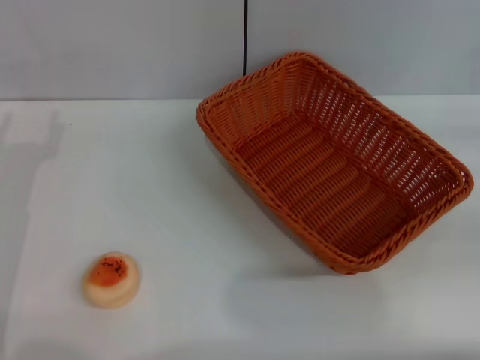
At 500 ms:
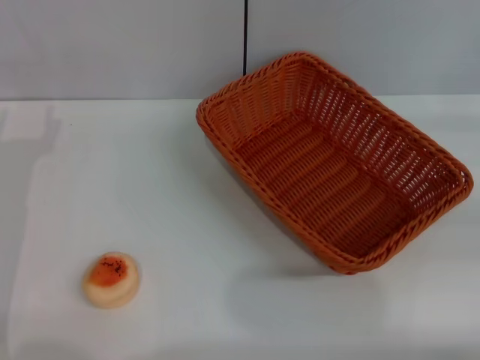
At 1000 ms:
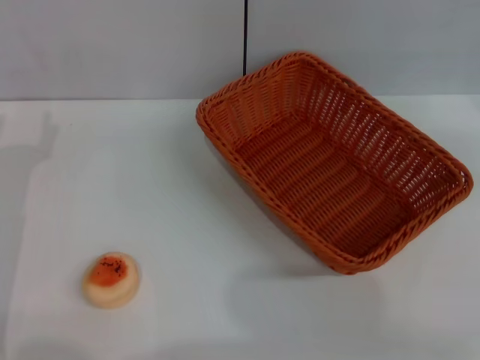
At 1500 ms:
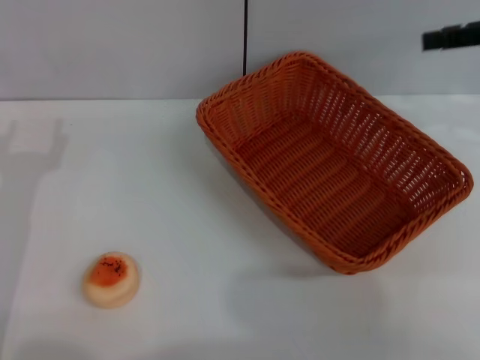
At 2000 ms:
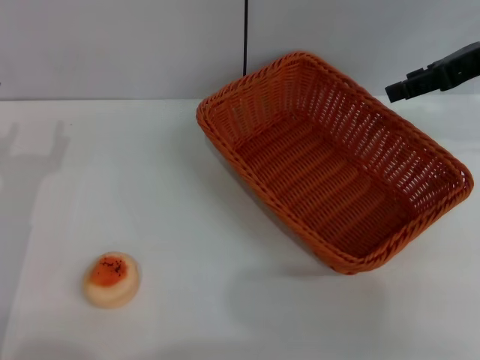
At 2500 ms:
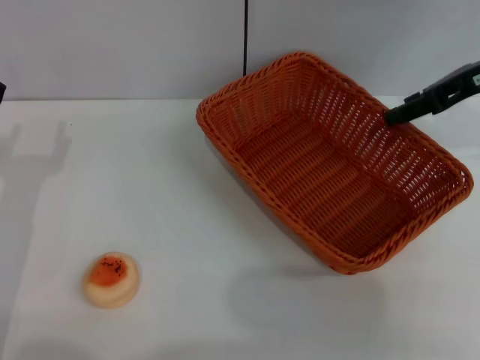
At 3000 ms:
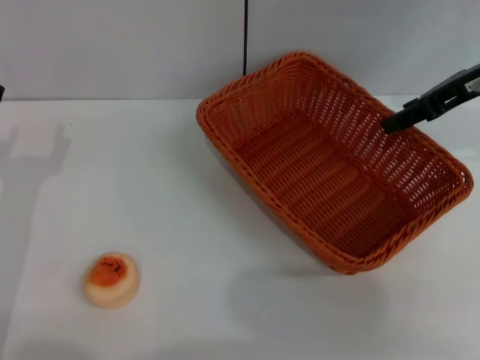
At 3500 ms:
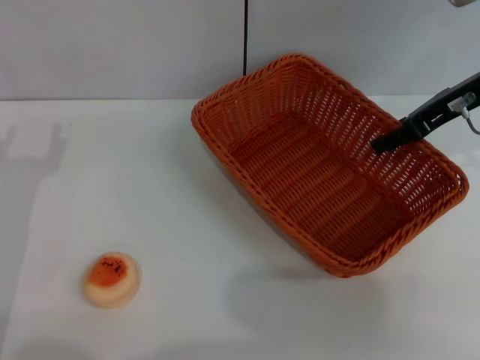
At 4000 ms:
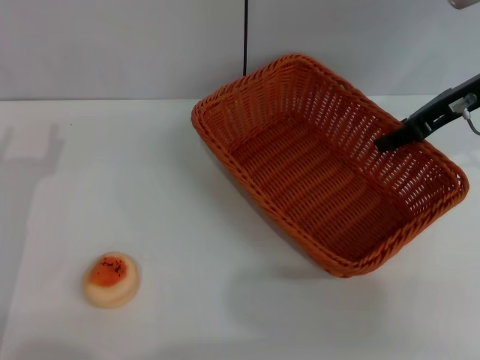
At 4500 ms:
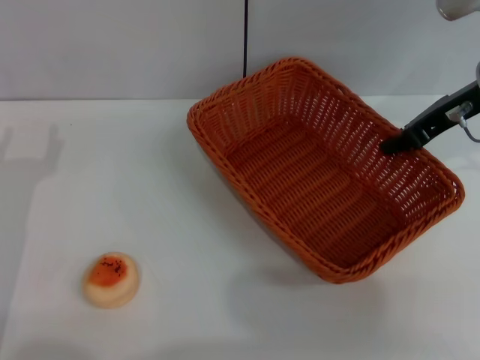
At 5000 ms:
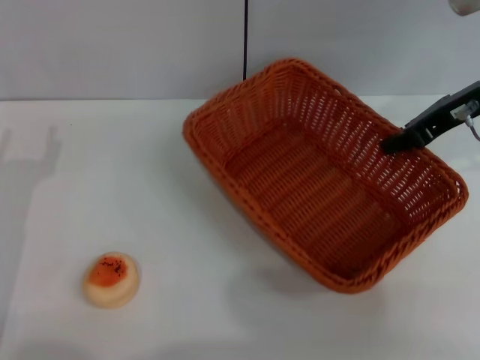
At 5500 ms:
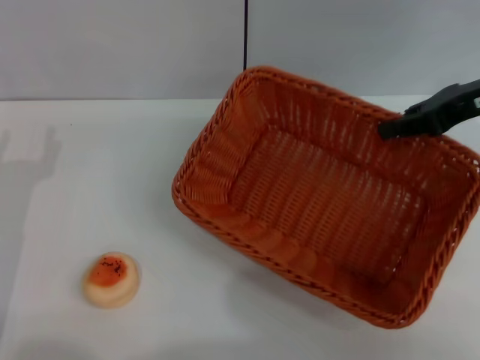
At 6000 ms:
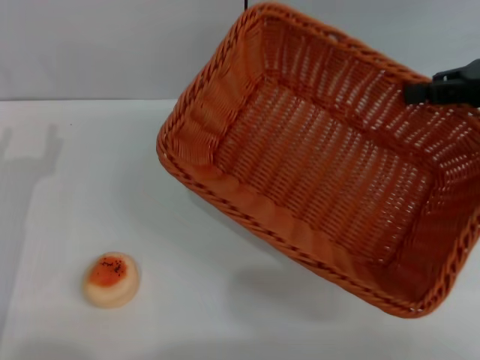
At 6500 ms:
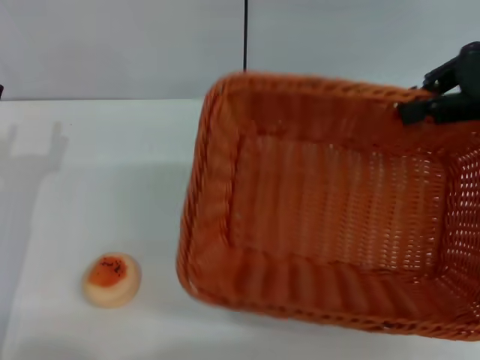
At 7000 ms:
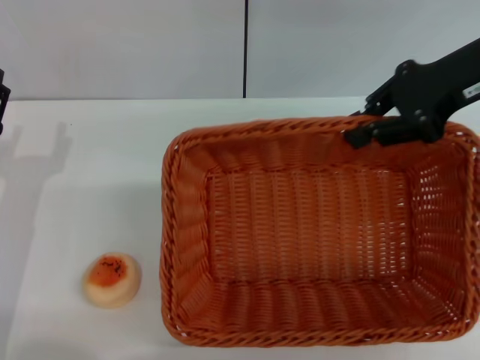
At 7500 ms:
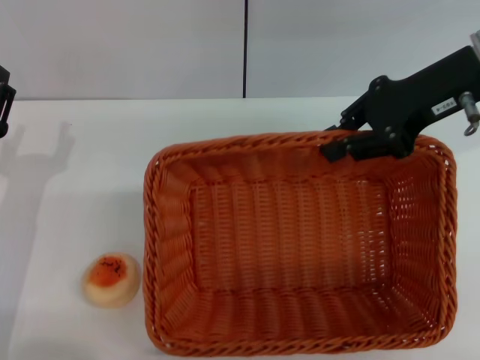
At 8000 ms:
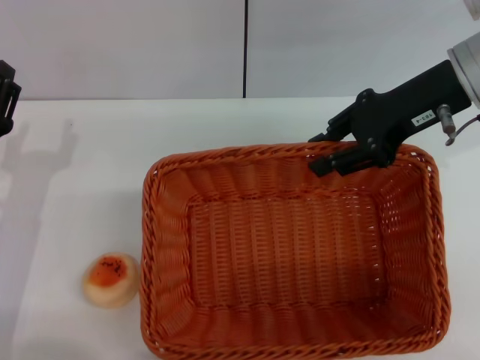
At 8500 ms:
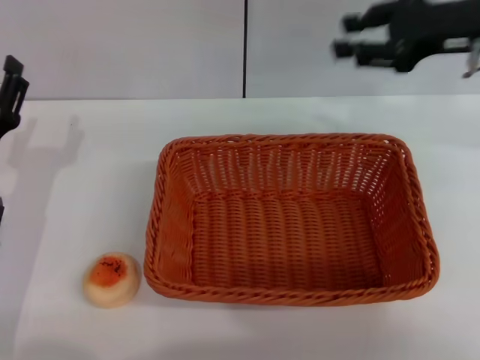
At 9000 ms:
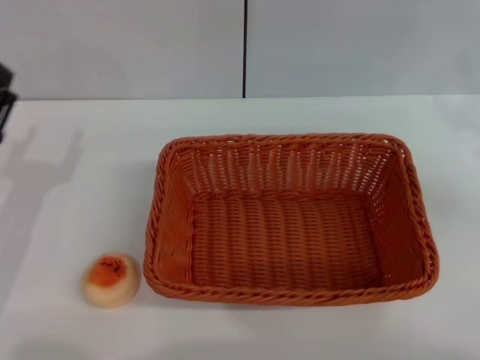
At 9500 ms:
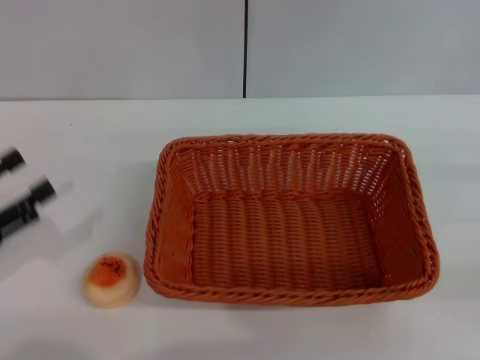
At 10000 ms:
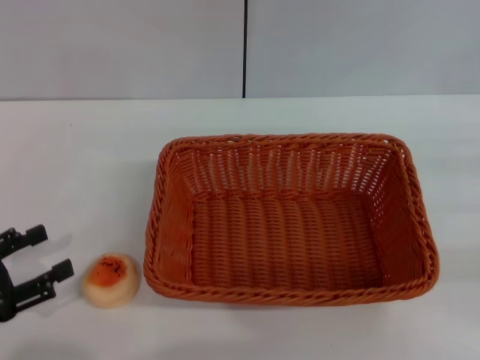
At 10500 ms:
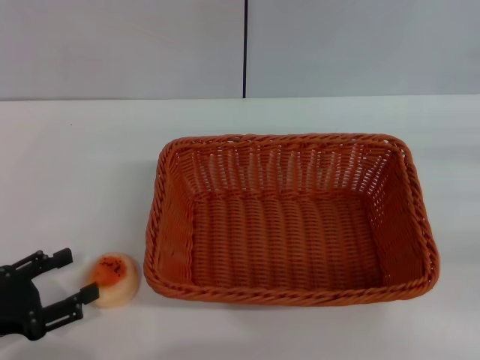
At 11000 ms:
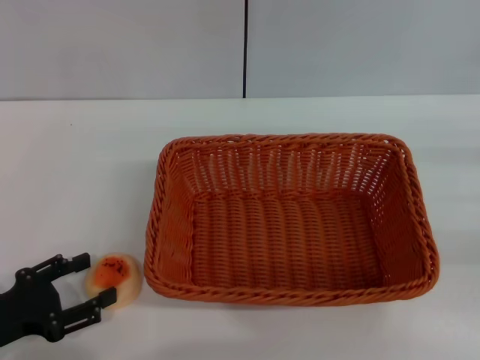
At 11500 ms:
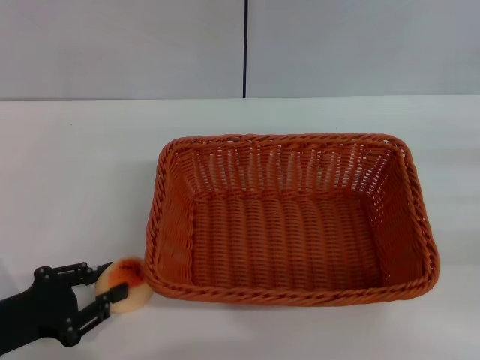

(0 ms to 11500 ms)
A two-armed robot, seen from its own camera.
Step, 0 ms - 8000 ms: Move the basket to the center of view with the right gripper.
0 ms - 2000 ms: The right gripper is displaced to the left, forward and upward by approximately 20 cm, and opens.
2000 ms - 4000 ms: The right gripper changes place by about 5 cm.
4000 ms - 6000 ms: The right gripper is displaced to the right by about 5 cm, and closes its fingers.
6000 ms - 7500 ms: The right gripper shifts approximately 10 cm to the left.
7500 ms - 9500 ms: The right gripper is displaced to the right, backward and downward by roughly 30 cm, and opens; the left gripper goes about 10 cm to the left.
9500 ms - 11500 ms: The left gripper shifts approximately 5 cm downward.

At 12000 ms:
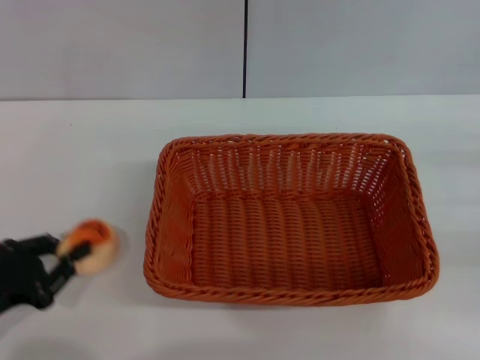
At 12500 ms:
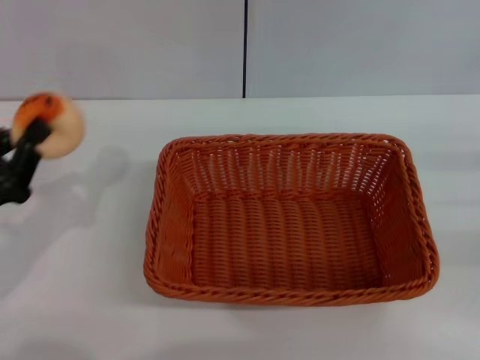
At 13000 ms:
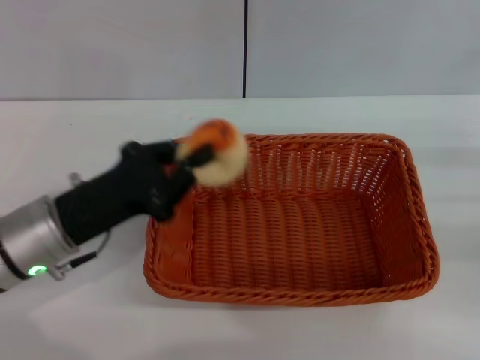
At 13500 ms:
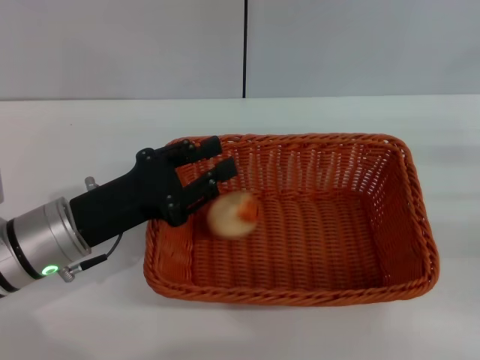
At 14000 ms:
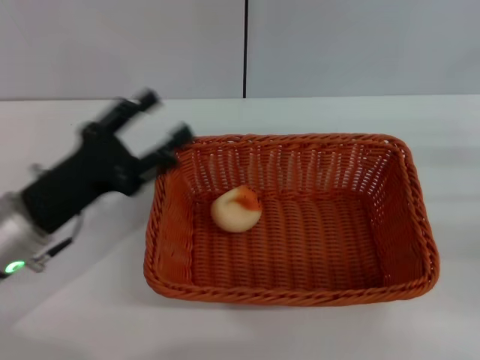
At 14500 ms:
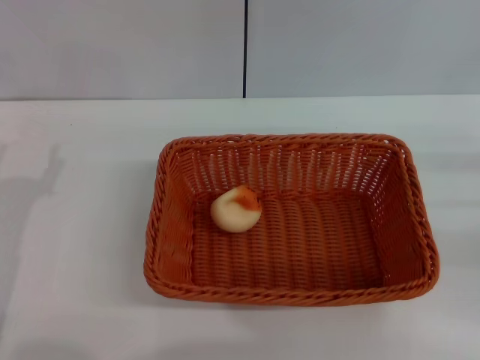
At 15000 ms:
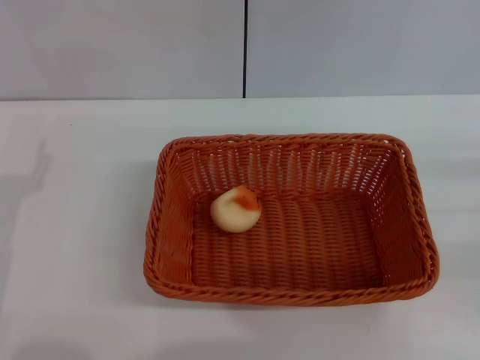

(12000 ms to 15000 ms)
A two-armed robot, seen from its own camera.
Step, 12500 ms - 13500 ms: Place the egg yolk pastry into the basket with the left gripper.
12000 ms - 13500 ms: The left gripper heads to the right and forward, covering about 15 cm.
13500 ms - 15000 ms: The left gripper shifts roughly 10 cm to the left and backward, and opens up.
